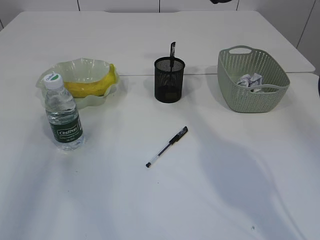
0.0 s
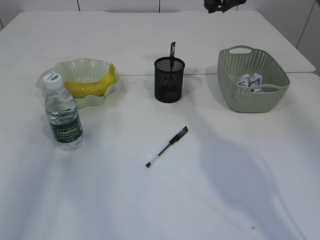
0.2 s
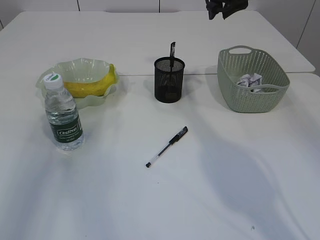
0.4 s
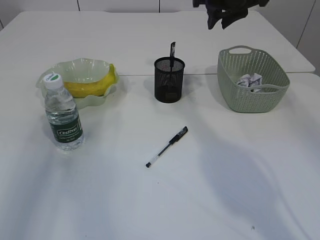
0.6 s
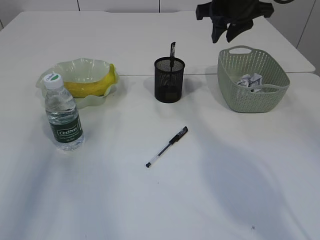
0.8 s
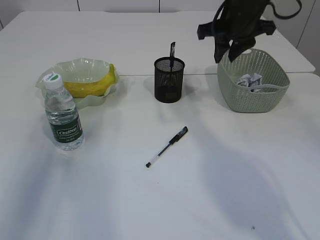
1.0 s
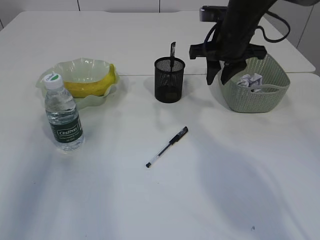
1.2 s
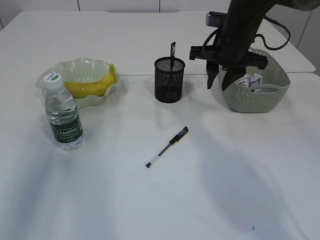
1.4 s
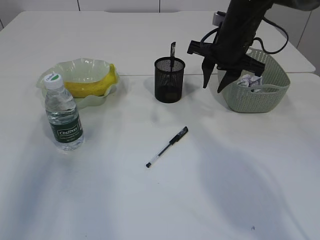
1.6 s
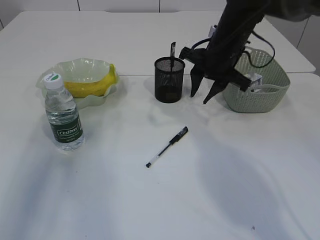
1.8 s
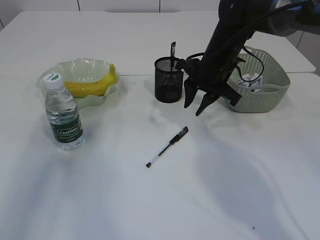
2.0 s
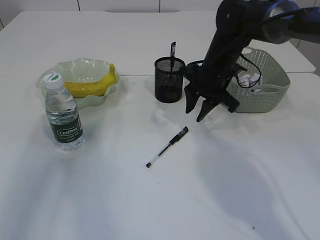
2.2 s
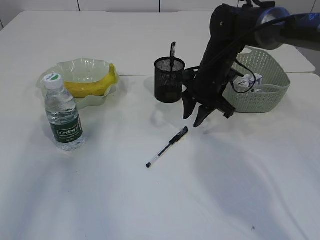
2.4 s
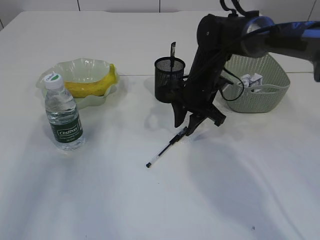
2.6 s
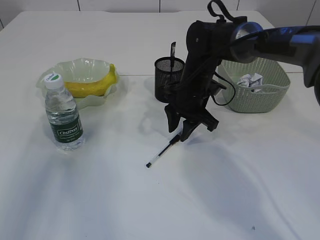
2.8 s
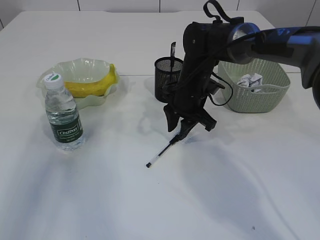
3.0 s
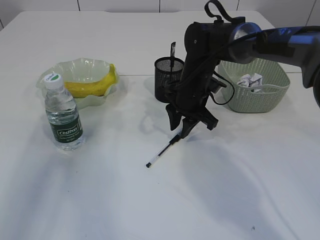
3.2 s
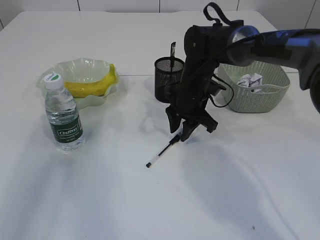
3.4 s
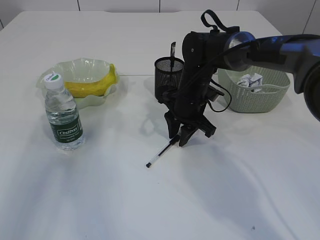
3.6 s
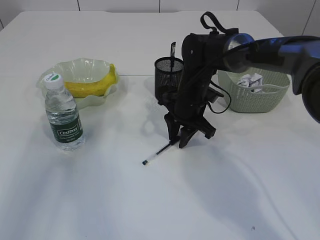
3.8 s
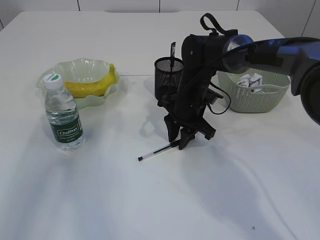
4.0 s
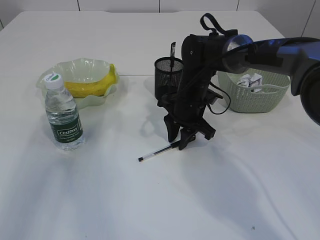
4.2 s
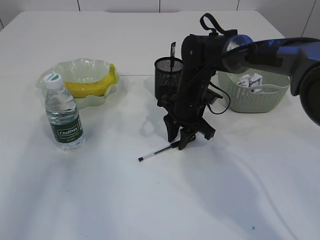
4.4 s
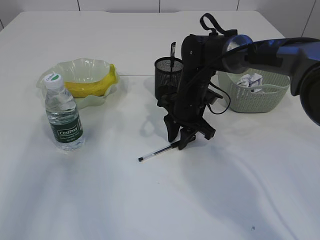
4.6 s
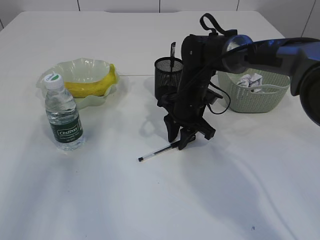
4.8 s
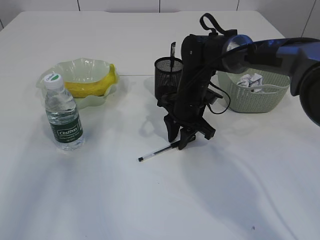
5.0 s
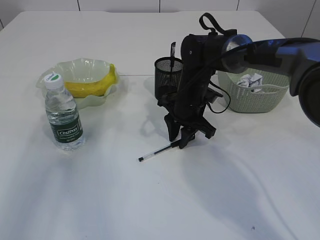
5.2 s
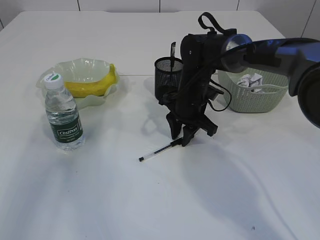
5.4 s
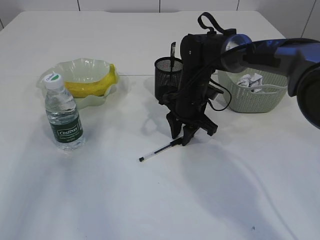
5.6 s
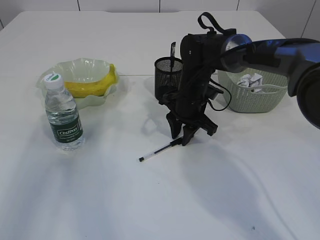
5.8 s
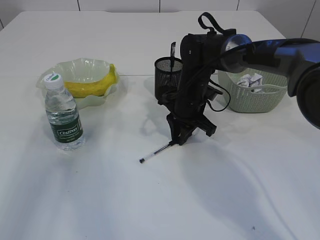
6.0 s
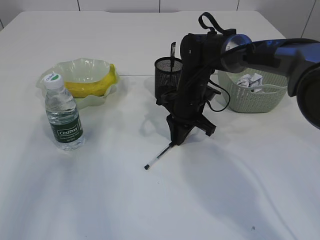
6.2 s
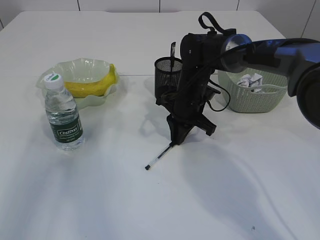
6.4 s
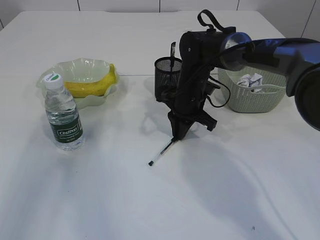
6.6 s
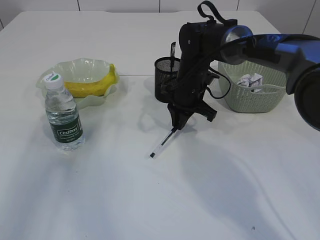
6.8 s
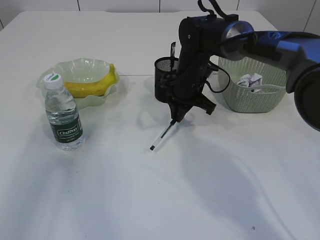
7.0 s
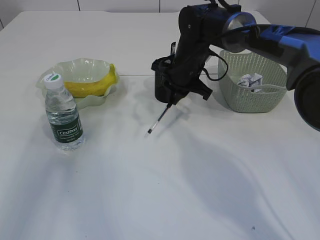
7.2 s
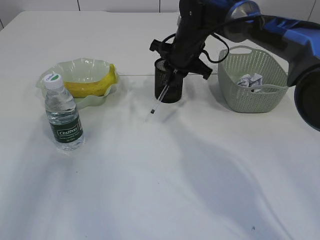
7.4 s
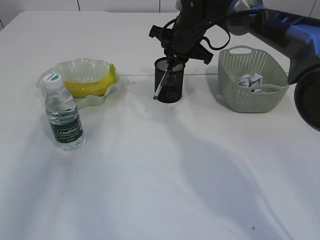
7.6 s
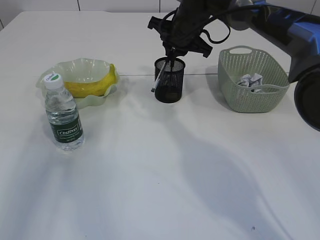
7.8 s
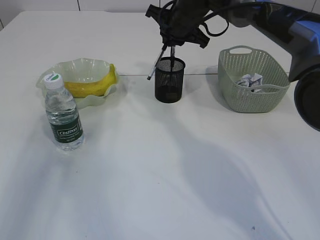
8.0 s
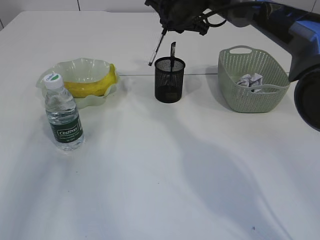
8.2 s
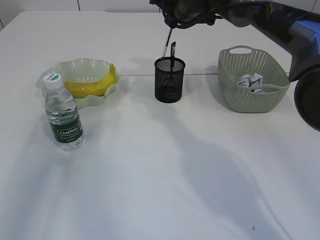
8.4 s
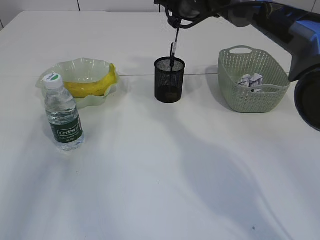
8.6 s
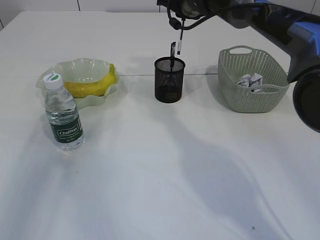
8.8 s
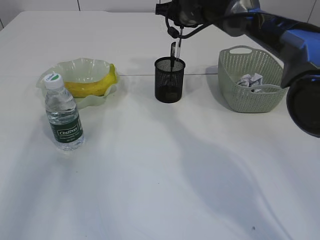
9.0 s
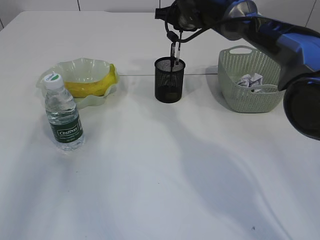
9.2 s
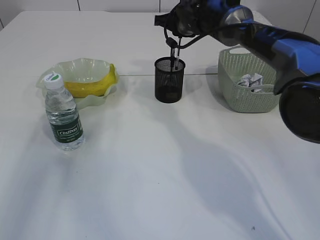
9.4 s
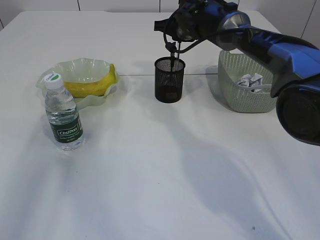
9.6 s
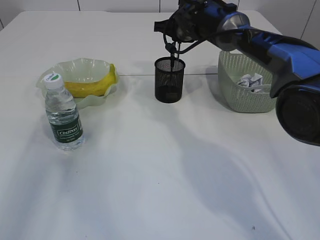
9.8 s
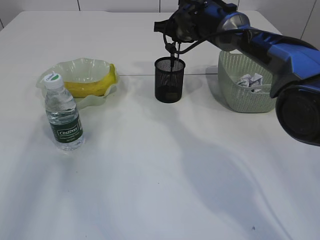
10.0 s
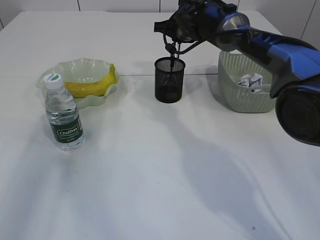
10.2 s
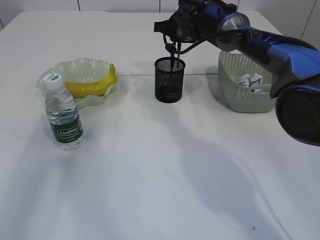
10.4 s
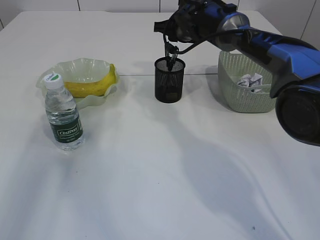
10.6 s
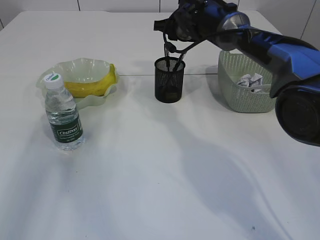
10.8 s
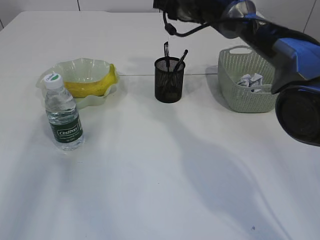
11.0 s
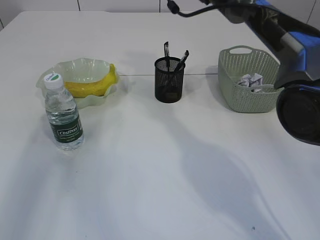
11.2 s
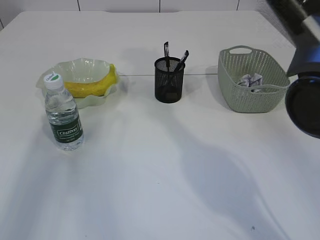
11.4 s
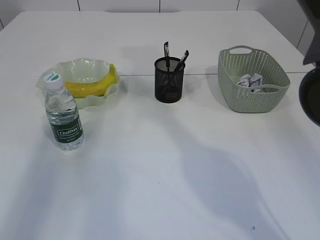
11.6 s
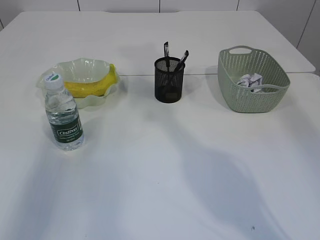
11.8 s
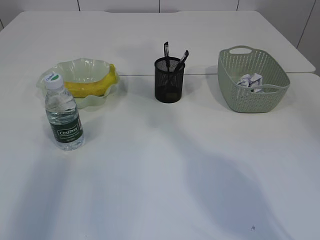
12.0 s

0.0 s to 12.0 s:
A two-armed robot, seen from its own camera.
Step, 0.0 to 7.2 s: Pick up the pen with right arm.
Step, 7.4 to 10.8 s: Place the pen into the pen holder.
0.0 to 1.6 s: The right gripper is displaced downward and backward by roughly 10 cm.
1.6 to 3.0 s: The right gripper is displaced downward and to the left by some 10 cm.
3.0 to 4.4 s: The grippers stay close to where they were, moving slightly.
4.4 to 6.0 s: Both grippers stay put.
6.0 to 7.6 s: The right gripper travels upward and forward by some 10 cm.
7.6 to 9.0 s: The right gripper moves approximately 5 cm.
9.0 to 10.4 s: There are only small adjustments of the grippers.
10.4 to 12.0 s: The right gripper goes approximately 30 cm upward and backward. The left gripper shifts approximately 15 cm upward and backward.

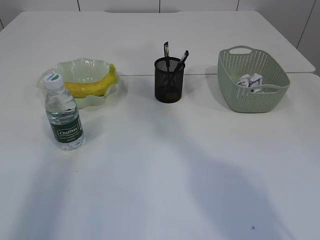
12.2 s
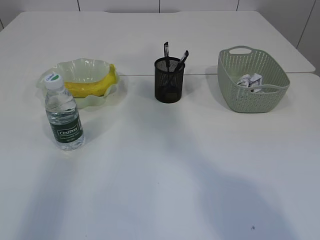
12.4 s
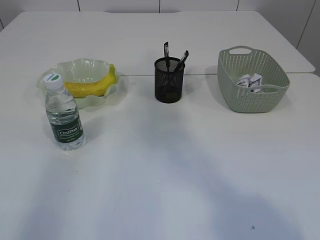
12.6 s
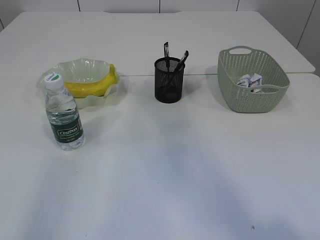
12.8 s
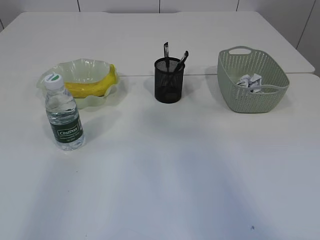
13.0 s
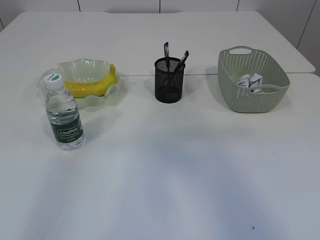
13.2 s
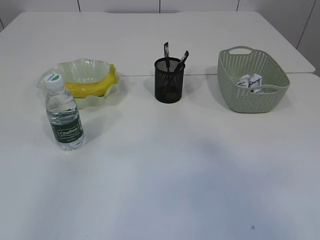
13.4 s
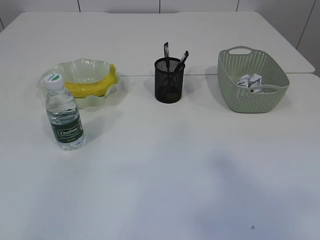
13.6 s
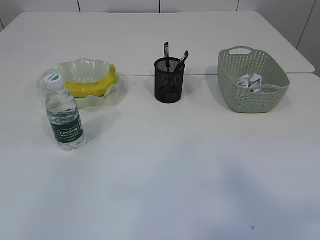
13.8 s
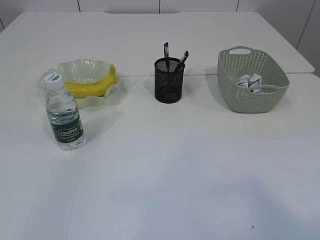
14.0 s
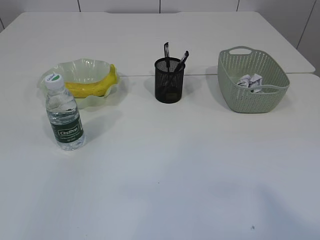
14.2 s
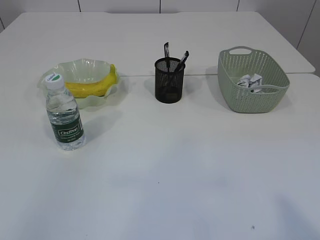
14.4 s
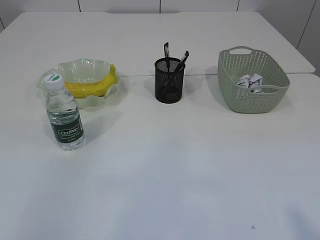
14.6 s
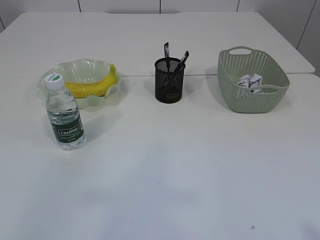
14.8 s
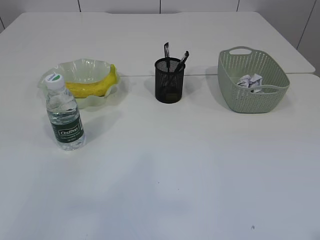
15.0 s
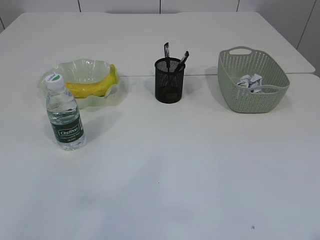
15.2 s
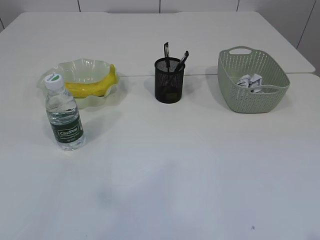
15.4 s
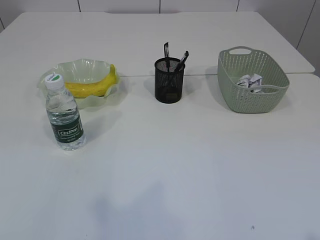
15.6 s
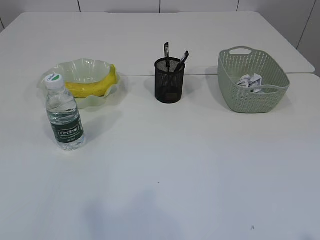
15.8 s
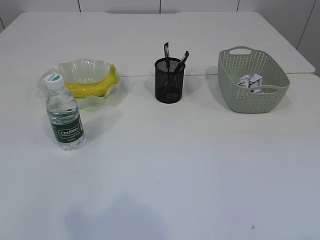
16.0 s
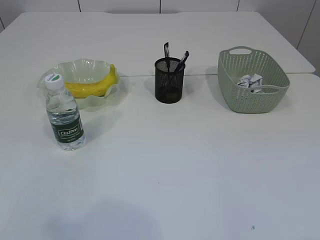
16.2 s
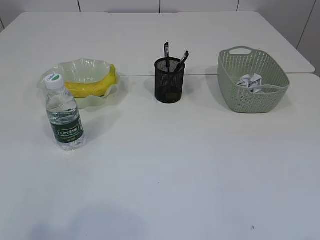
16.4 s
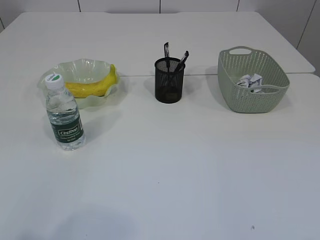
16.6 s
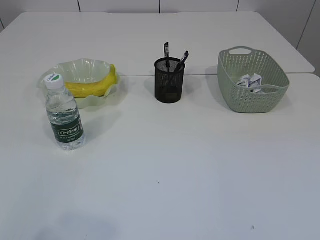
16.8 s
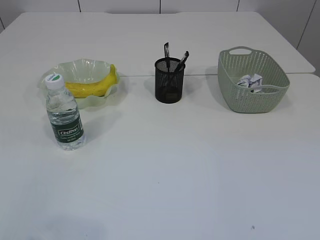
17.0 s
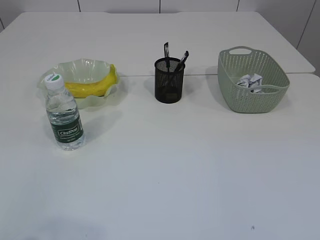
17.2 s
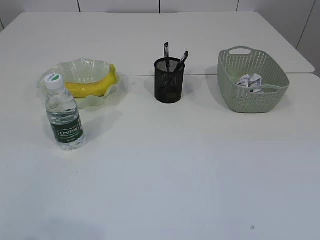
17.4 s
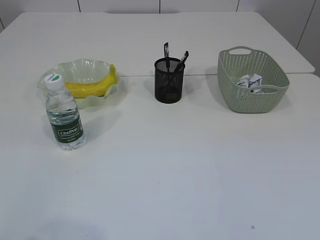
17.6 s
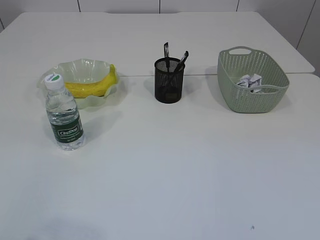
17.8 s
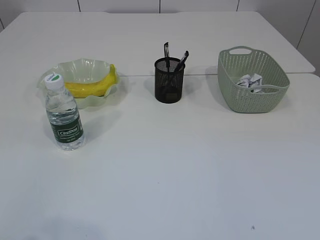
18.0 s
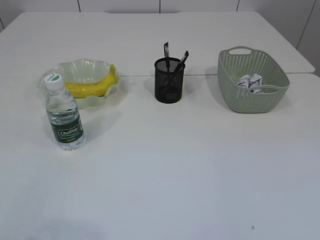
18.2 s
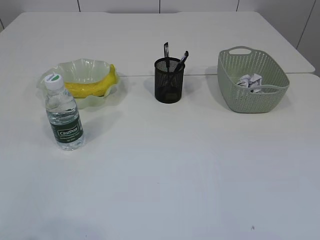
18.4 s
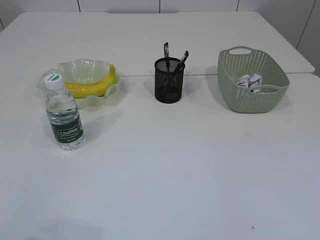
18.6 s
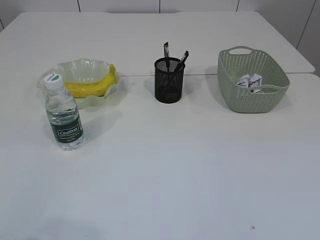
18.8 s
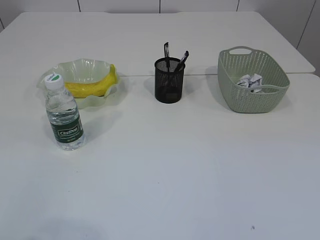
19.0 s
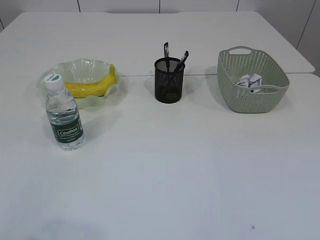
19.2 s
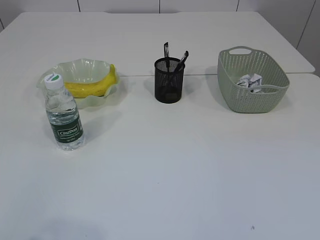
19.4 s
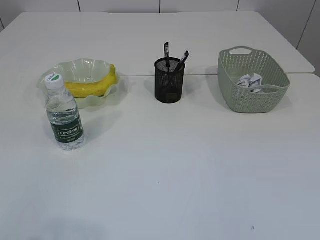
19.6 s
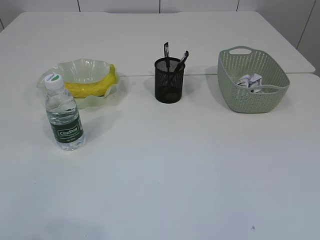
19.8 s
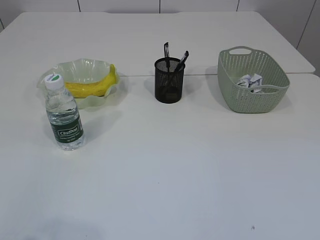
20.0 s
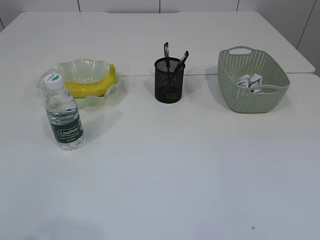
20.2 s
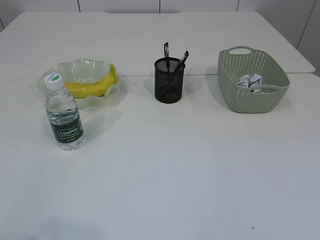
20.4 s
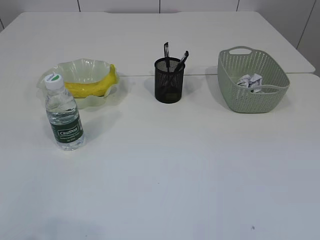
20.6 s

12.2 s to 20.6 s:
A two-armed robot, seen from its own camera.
12.2 to 13.6 s: The left gripper travels backward by approximately 15 cm, and closes; the right gripper moves backward, approximately 40 cm.
13.6 to 15.0 s: The right gripper moves downward, some 30 cm.
19.2 to 20.6 s: The two grippers keep their place.

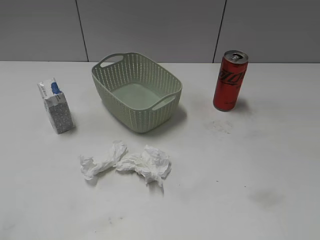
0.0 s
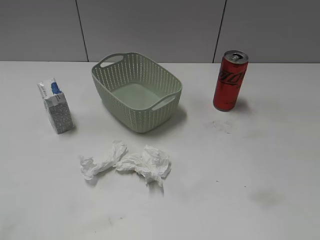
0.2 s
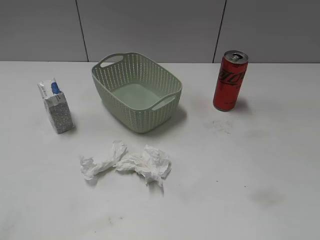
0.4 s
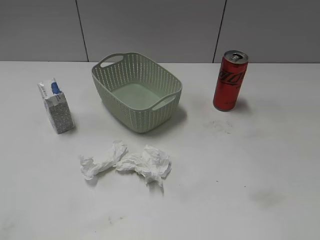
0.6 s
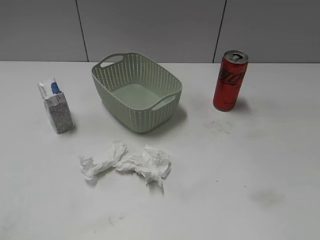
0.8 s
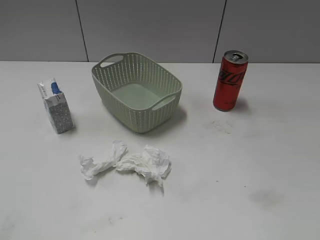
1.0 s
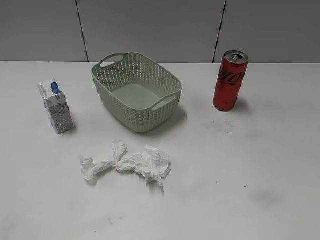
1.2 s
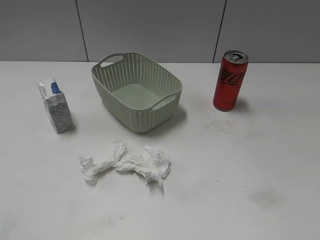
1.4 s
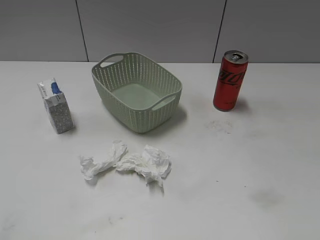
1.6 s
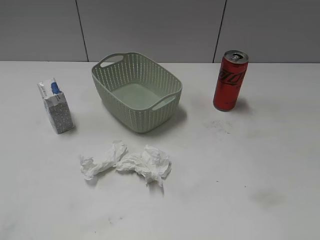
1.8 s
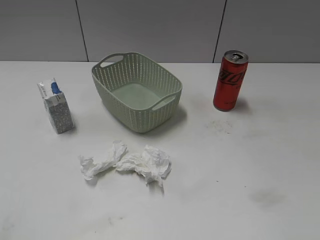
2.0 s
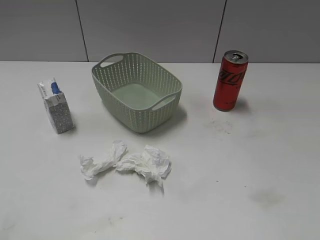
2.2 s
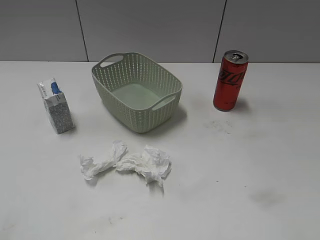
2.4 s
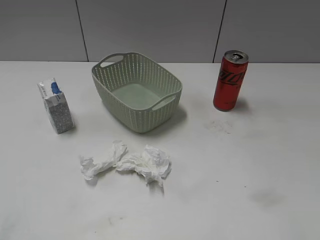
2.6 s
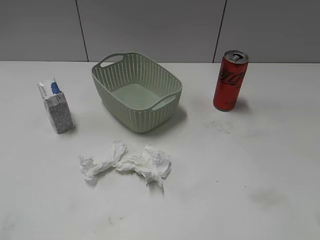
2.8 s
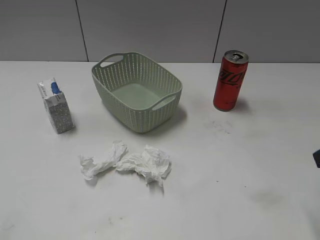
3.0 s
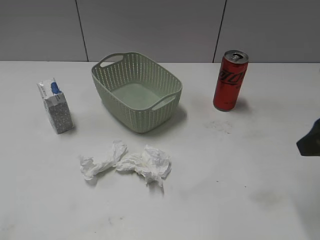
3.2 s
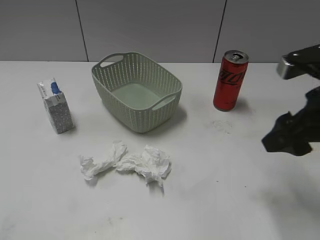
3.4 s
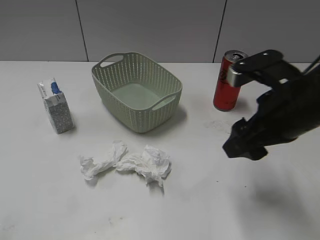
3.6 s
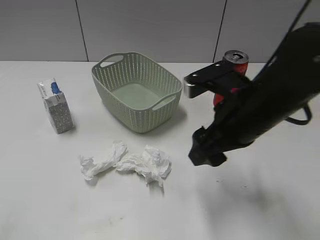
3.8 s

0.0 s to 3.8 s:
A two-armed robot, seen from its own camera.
2.6 to 3.8 s: The left gripper opens its fingers. The right gripper heads to the left and forward, covering some 20 cm.
